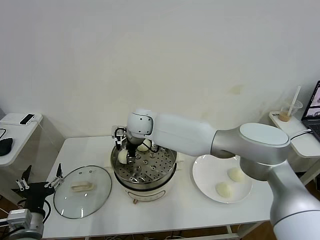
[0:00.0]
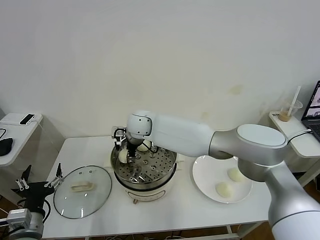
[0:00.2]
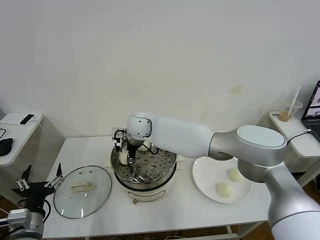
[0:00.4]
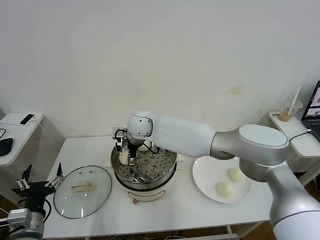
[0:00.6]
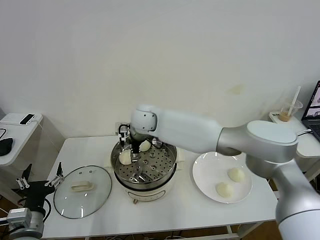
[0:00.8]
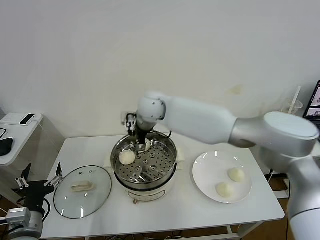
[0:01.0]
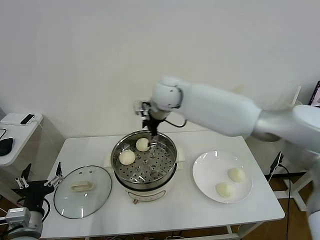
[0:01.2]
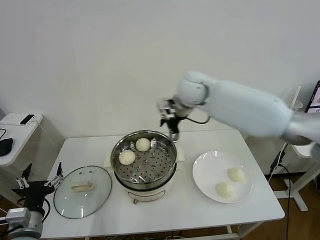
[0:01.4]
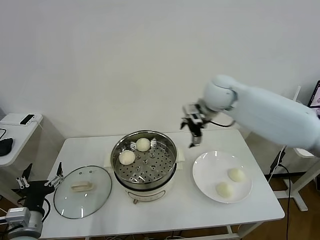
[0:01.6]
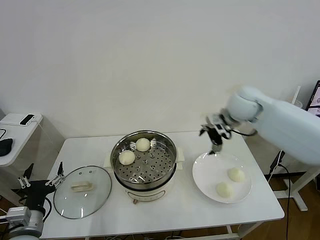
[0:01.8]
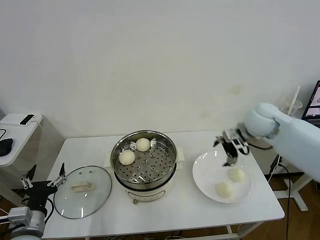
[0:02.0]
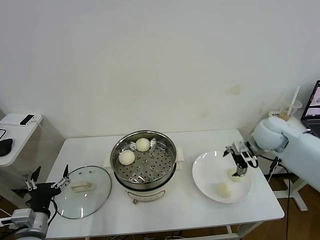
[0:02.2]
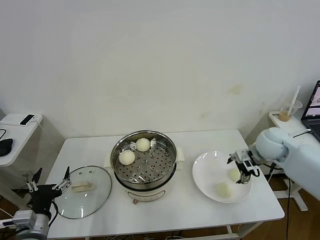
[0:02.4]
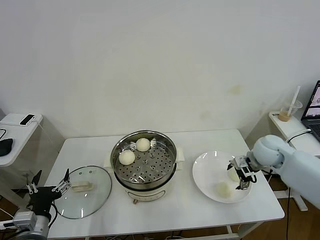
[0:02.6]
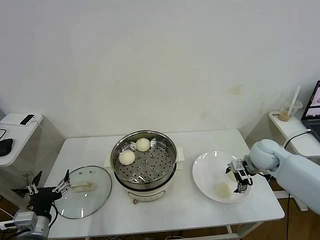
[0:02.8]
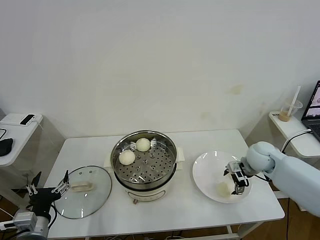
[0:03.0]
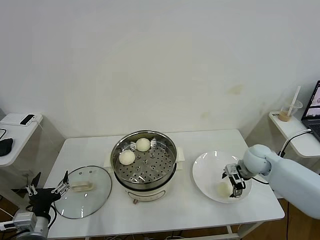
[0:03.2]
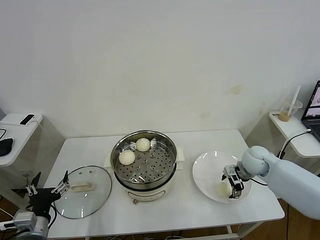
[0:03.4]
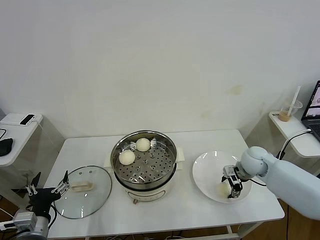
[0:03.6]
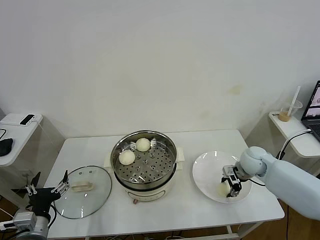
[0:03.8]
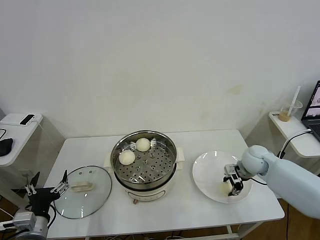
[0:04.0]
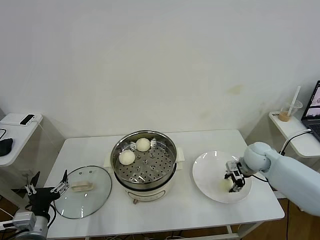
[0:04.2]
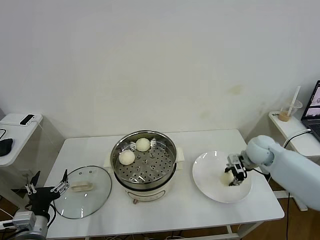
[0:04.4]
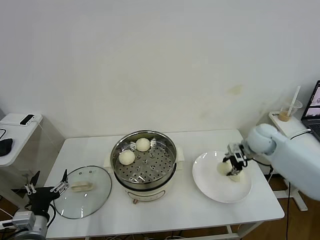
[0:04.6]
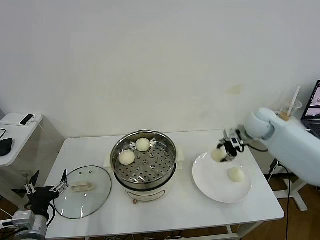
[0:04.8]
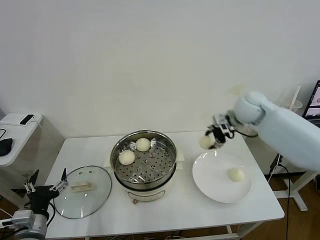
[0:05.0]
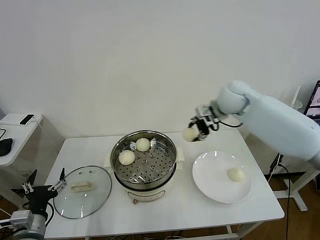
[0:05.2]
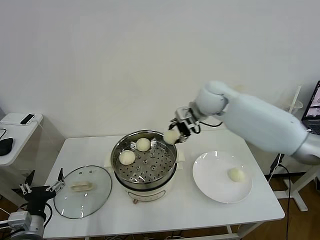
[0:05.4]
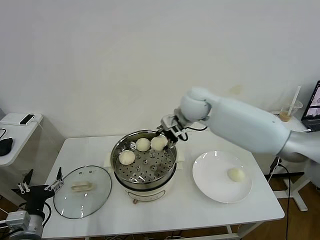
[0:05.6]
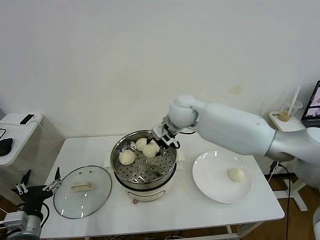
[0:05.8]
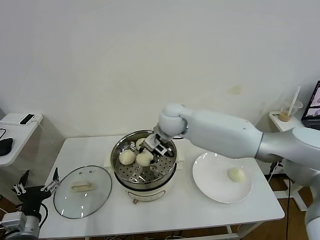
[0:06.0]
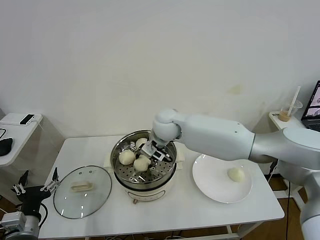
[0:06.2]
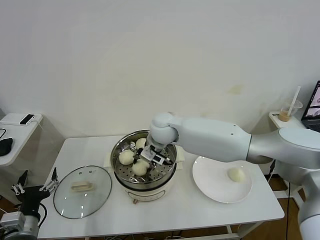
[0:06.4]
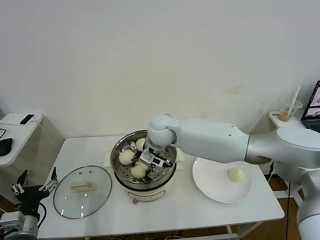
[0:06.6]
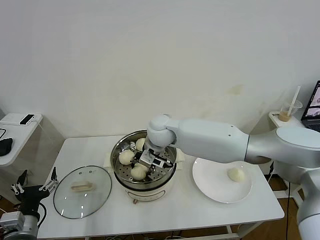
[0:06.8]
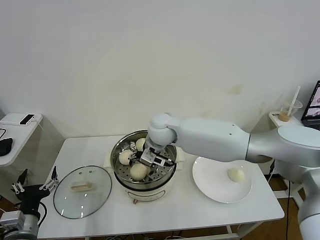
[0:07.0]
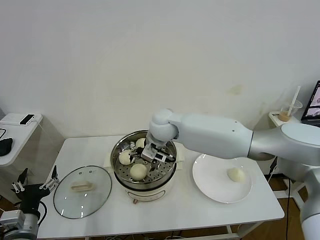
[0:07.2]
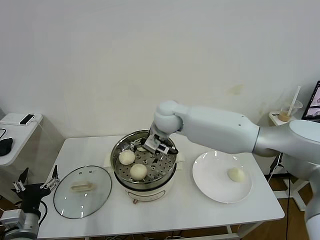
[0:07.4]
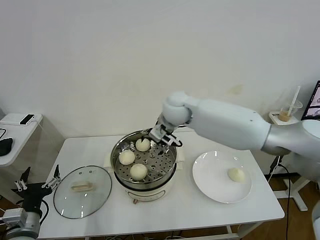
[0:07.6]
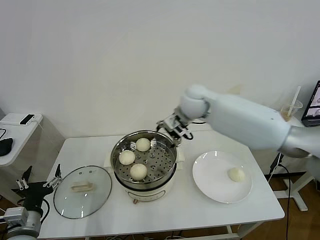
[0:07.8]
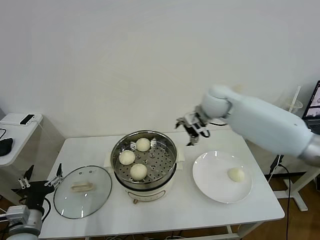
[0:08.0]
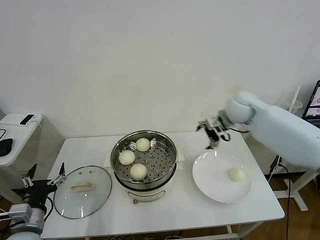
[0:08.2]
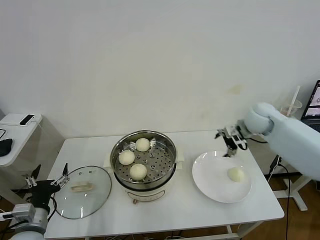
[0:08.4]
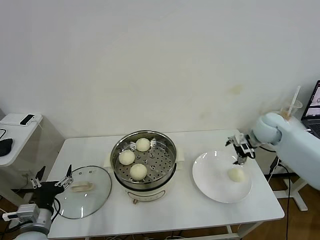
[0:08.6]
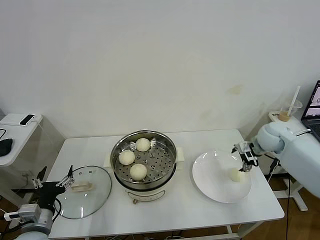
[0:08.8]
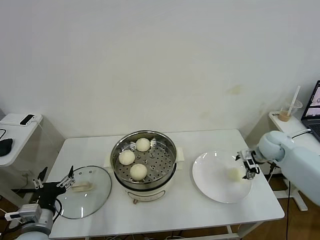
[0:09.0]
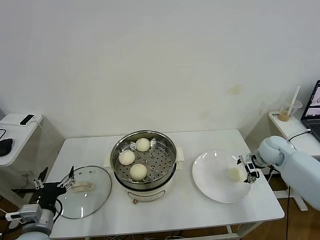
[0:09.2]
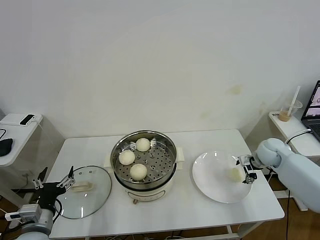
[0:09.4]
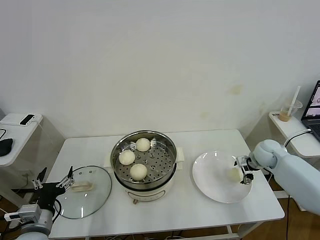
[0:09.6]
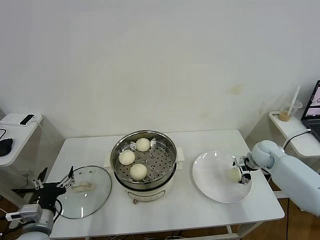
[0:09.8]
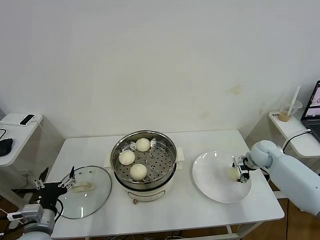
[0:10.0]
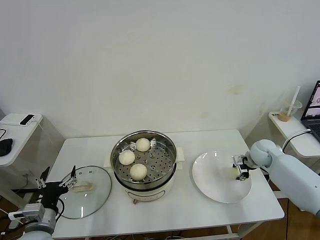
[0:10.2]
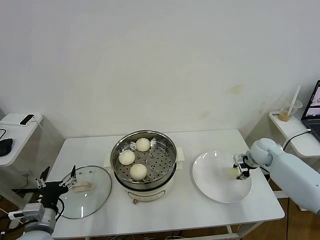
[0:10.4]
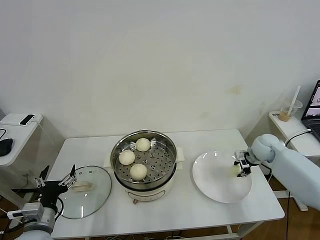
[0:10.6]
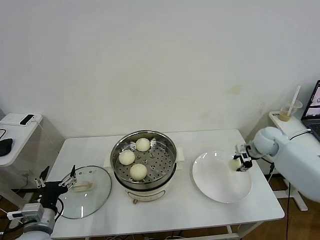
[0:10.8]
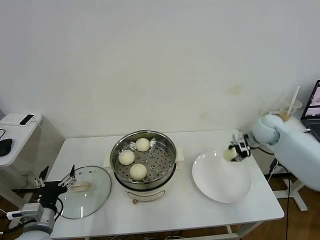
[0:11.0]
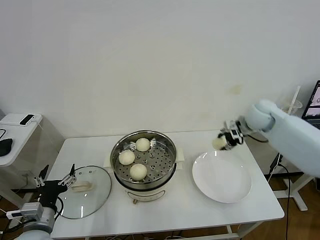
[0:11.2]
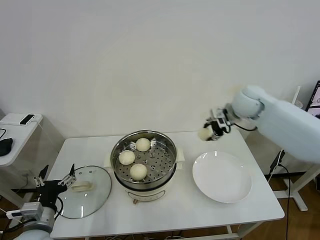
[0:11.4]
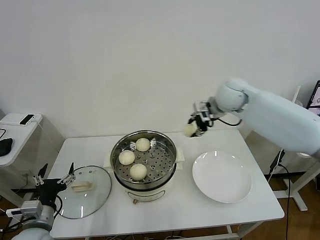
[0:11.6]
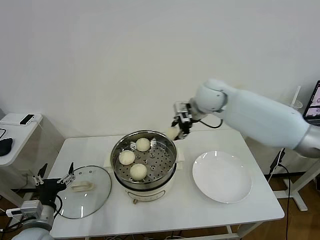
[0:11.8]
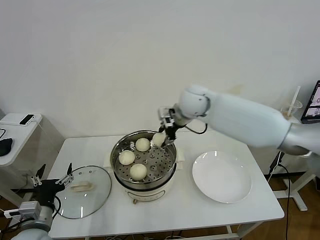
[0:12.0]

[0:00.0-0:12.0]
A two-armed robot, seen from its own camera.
Task of the whole recording: take steamed baozi put them in steamer then cover it.
Step, 0:01.0 to 0:03.8: Grasp the baozi in the plate with right gripper.
Step, 0:04.0 to 0:07.2: Place the baozi on the steamer with right gripper.
Step, 0:07.4 to 0:10.2: Grasp the baozi in the plate with right gripper.
0:00.0 to 0:01.6: The right gripper shifts some 30 cm to the right, and opens its fingers.
0:01.6 to 0:03.0: The right gripper moves downward and to the right, some 25 cm.
0:03.0 to 0:04.4: The right gripper closes up.
0:04.4 to 0:06.0: The right gripper moves to the left, some 30 cm.
0:06.0 to 0:07.6: The right gripper shifts by some 5 cm, and opens its fingers.
0:07.6 to 0:09.0: The right gripper travels to the right and downward by approximately 35 cm.
0:09.0 to 0:10.4: The right gripper closes.
0:10.4 to 0:12.0: The right gripper goes roughly 35 cm to the left and upward.

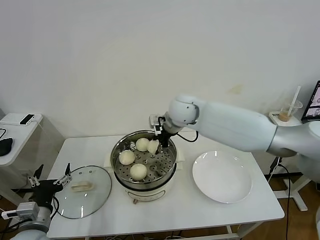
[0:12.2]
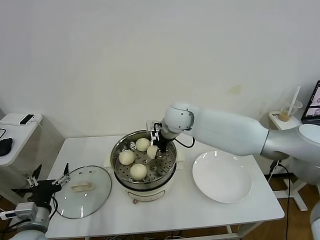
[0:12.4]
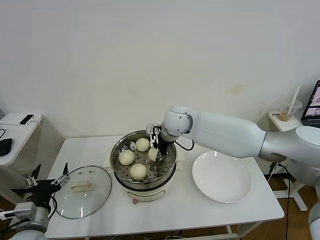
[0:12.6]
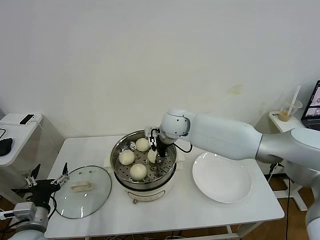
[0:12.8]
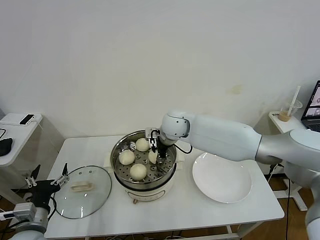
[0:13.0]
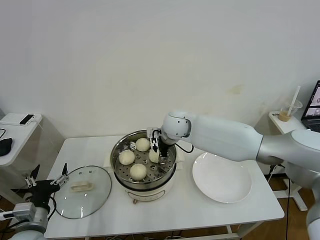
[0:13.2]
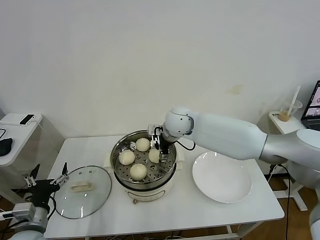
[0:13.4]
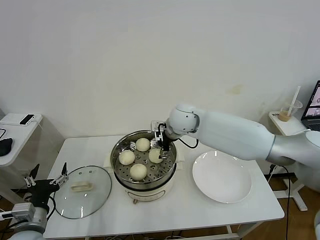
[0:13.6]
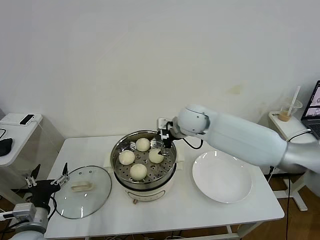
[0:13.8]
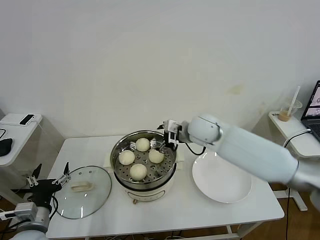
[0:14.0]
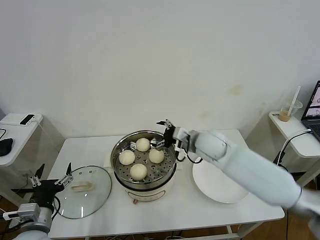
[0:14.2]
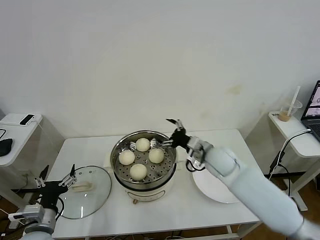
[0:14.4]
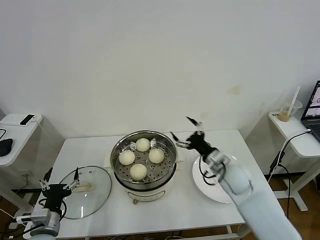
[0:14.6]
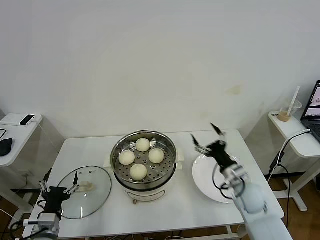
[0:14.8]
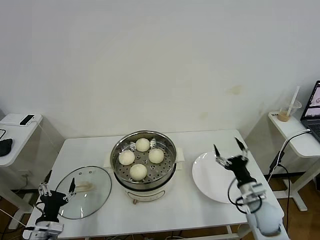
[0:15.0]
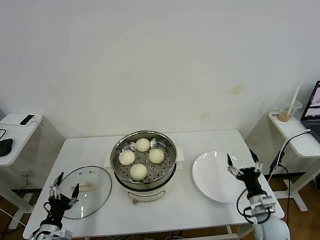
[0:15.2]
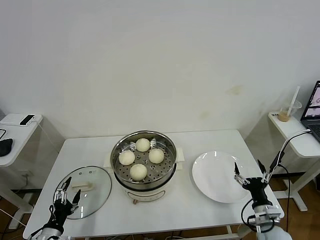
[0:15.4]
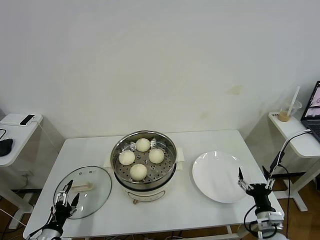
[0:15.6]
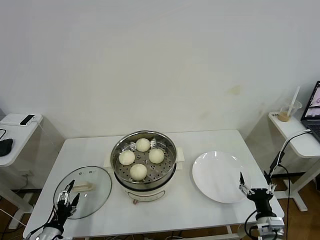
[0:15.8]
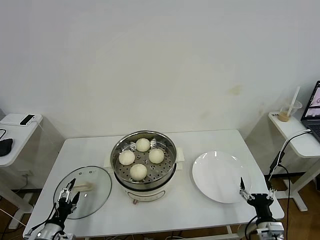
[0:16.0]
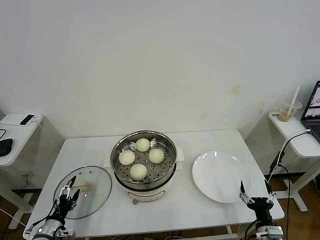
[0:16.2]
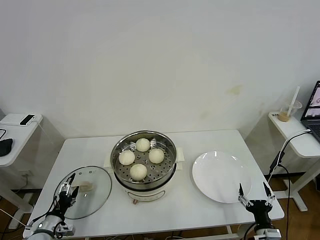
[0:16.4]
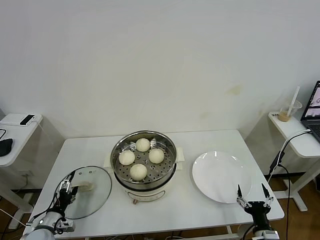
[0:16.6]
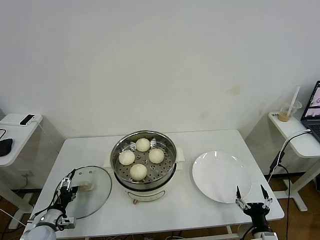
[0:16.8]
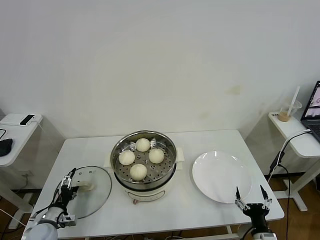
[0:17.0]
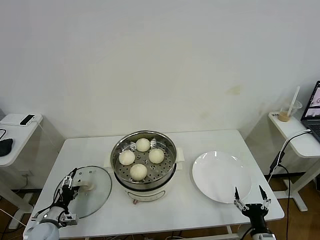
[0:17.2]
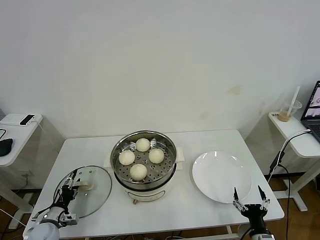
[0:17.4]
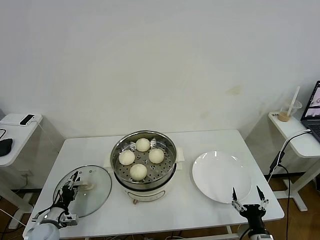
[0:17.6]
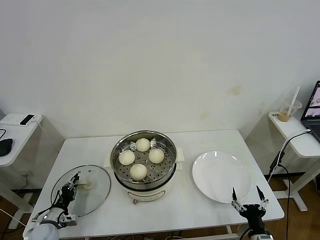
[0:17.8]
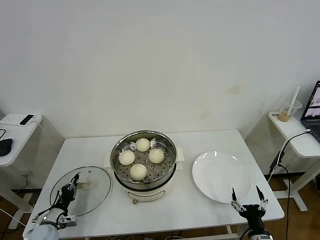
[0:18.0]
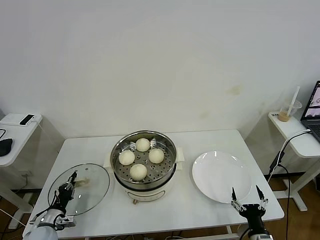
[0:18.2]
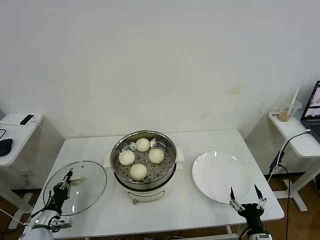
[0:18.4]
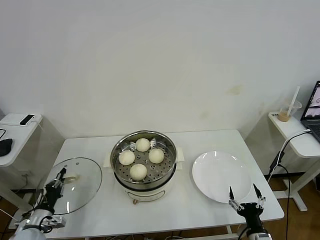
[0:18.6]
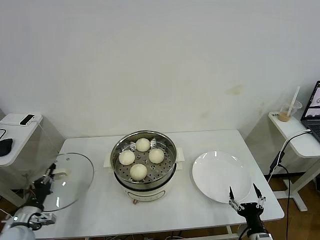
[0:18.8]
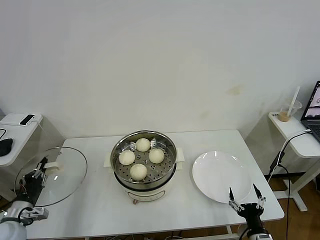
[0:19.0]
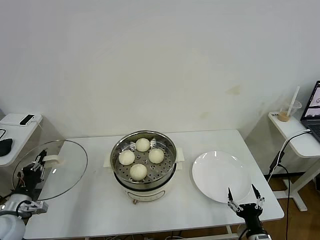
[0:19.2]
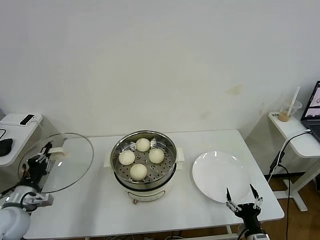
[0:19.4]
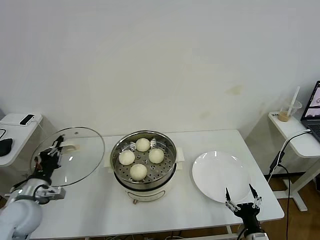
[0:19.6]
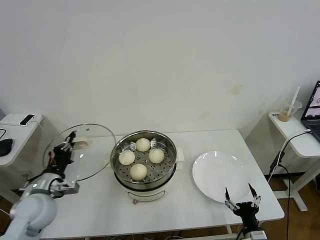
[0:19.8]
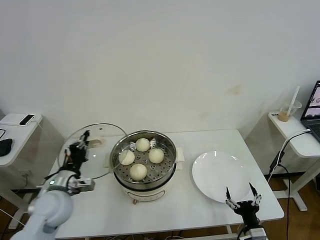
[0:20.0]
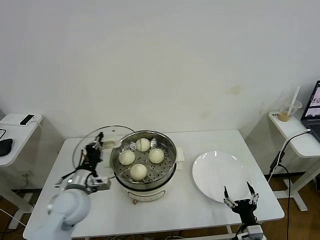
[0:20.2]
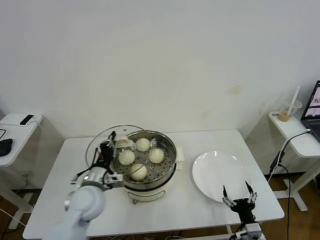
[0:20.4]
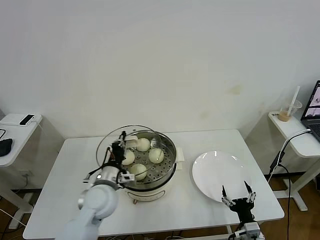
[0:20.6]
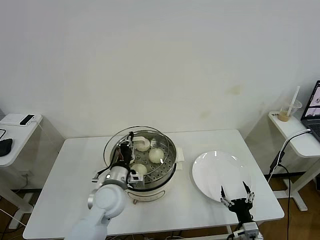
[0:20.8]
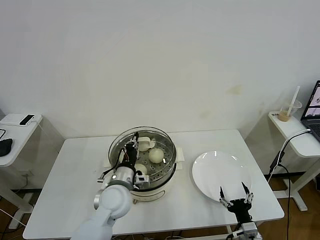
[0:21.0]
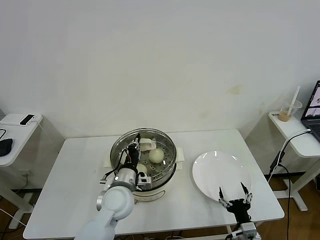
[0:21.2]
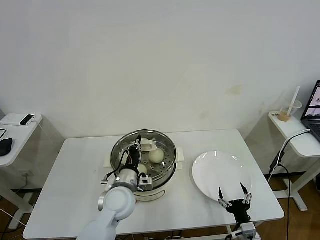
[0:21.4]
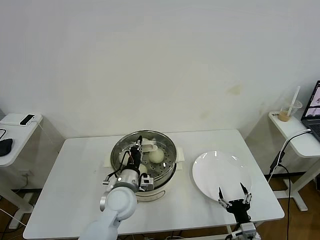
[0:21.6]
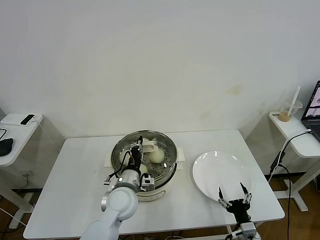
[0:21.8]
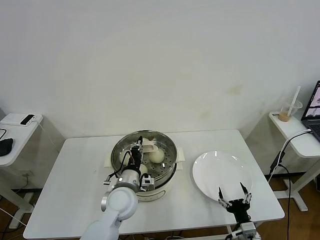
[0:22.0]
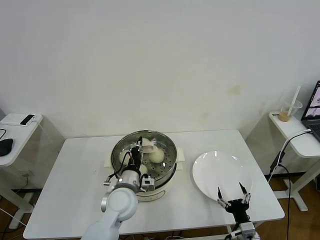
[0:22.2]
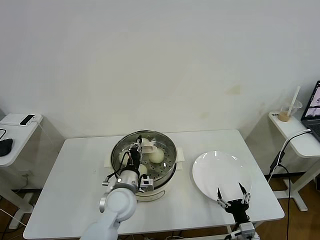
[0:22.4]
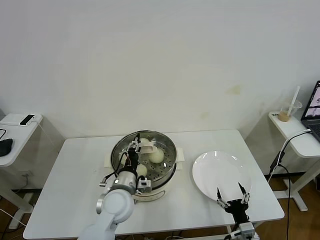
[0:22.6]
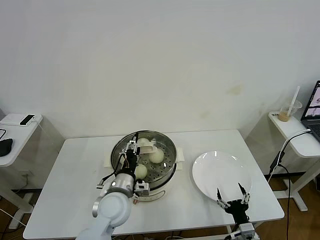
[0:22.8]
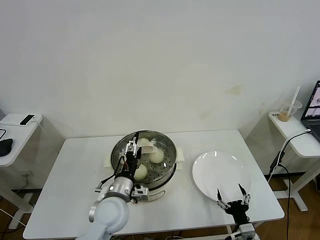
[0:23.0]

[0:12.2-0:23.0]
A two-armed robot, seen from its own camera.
Task of the whole recording: take steamed baozi put them in steamer then cover it.
Step, 0:13.8 to 0:18.0: Grasp the pot lid with left gripper.
0:12.2 to 0:13.8: The right gripper opens its fingers.
0:13.8 to 0:15.2: The right gripper goes some 40 cm downward, to the right and backward. Meanwhile the left gripper travels downward by roughly 10 cm.
0:15.2 to 0:16.8: The right gripper moves backward and downward, roughly 10 cm, while the left gripper is displaced forward and downward by approximately 10 cm.
0:16.8 to 0:18.4: The left gripper closes up.
0:18.4 to 0:20.0: The left gripper heads upward and to the right, covering about 20 cm.
0:20.0 to 0:21.4: The left gripper heads to the right, covering some 20 cm.
0:21.4 to 0:23.0: The left gripper opens.
